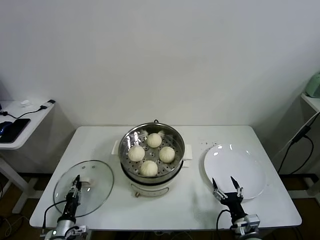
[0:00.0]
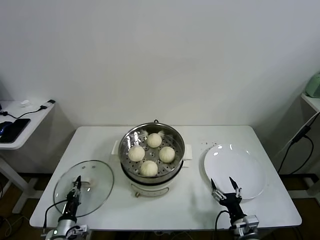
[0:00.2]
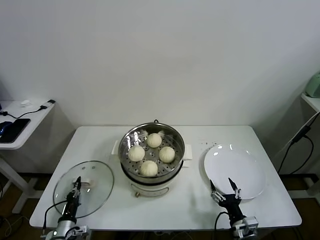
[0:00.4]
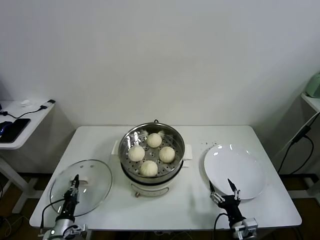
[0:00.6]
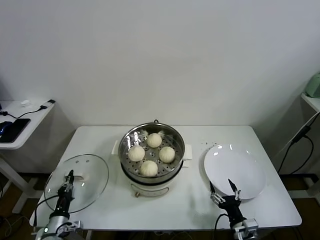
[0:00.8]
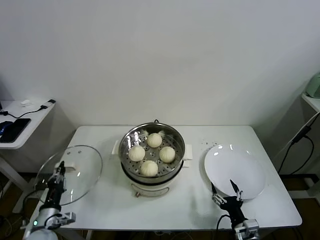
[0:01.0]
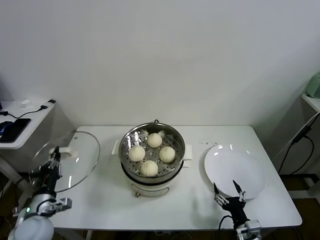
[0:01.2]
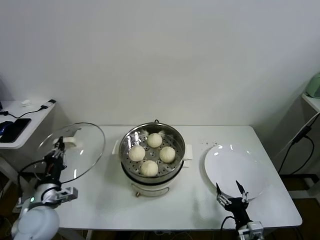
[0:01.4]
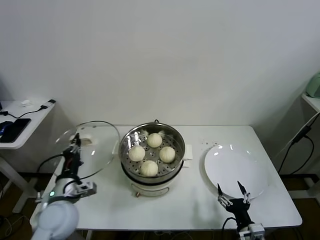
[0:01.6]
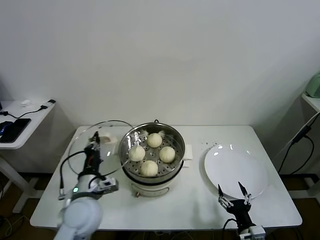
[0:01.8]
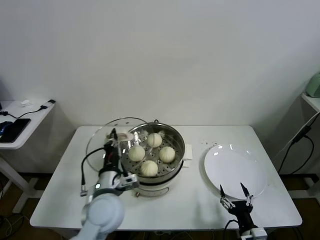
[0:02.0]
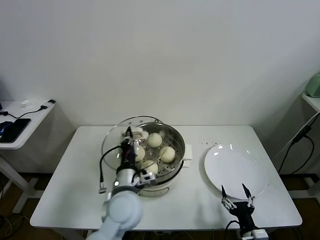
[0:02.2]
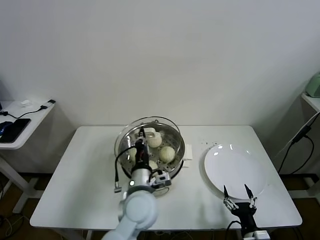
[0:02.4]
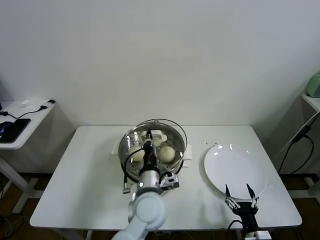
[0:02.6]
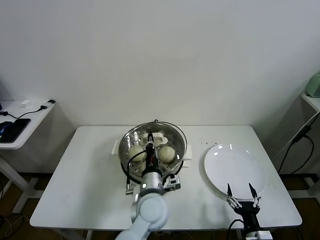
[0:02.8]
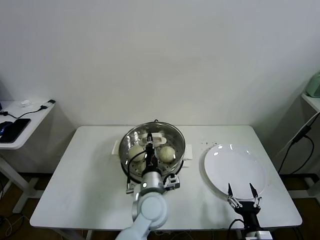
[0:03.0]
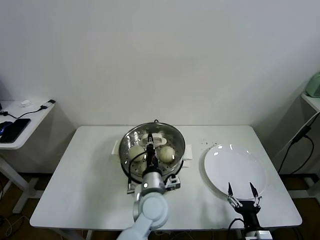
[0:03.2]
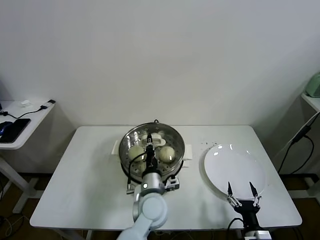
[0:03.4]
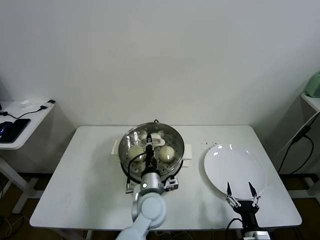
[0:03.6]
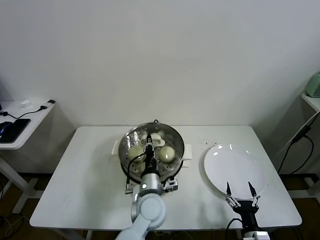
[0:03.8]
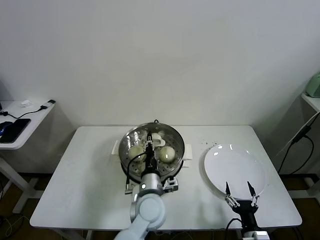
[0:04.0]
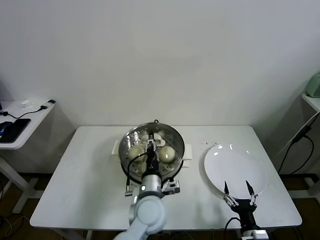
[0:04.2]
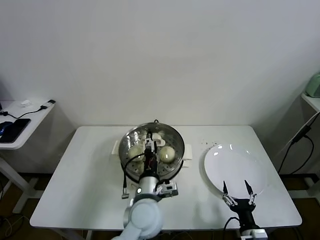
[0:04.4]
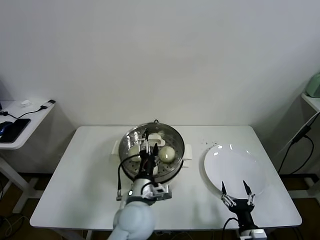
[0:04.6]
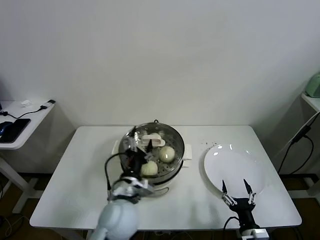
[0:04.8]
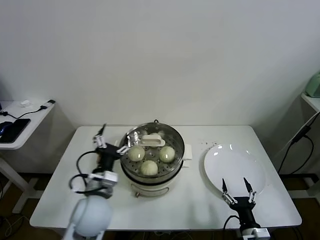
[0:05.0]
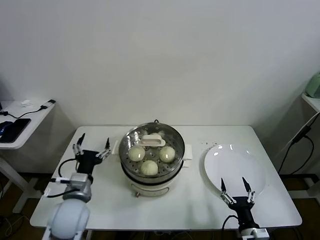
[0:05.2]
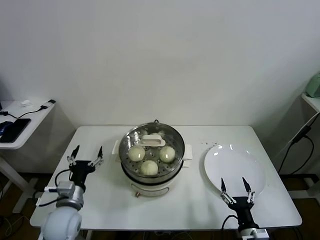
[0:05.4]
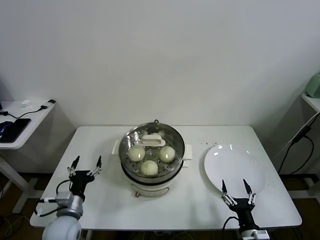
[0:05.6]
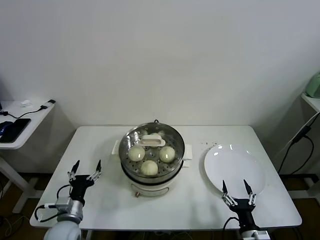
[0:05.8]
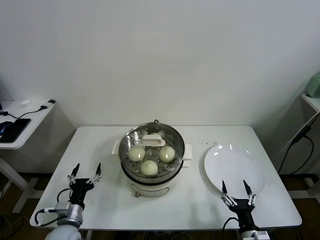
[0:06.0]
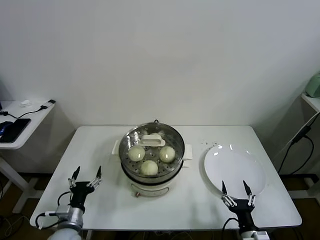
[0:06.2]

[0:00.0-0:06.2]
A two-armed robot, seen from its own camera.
Task of the whole recording: take steamed baozi put them in steamer.
Step, 0:00.4 to 0:04.4: Place the pot lid on the steamer with left gripper.
0:00.0 to 0:01.6: The left gripper is displaced upward by some 25 cm, and closes up.
0:01.6 to 0:03.2: The left gripper goes about 30 cm to the right.
0:03.2 to 0:04.6: The left gripper shifts by about 5 cm, and opens up.
0:04.6 to 0:06.2: The left gripper heads to the left and downward, covering about 30 cm.

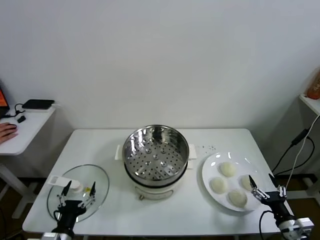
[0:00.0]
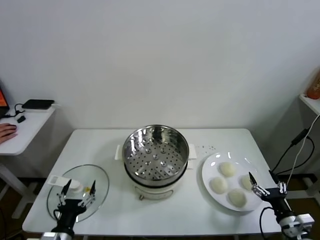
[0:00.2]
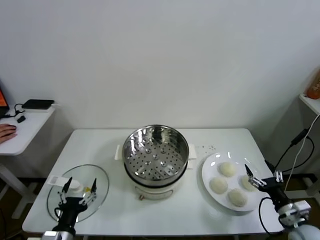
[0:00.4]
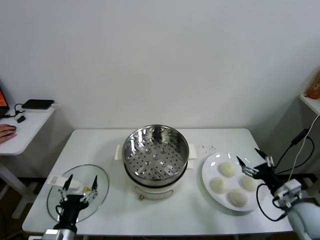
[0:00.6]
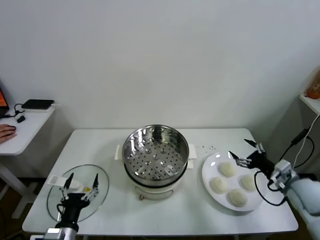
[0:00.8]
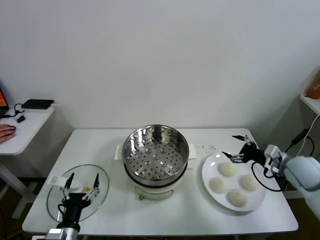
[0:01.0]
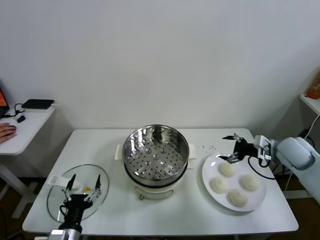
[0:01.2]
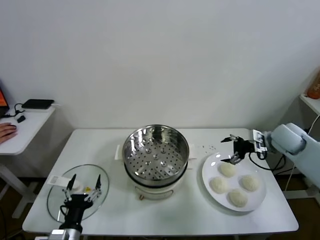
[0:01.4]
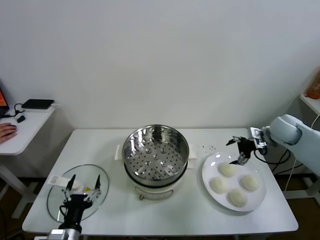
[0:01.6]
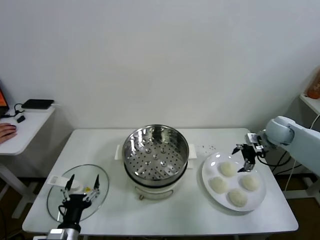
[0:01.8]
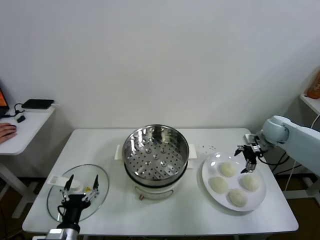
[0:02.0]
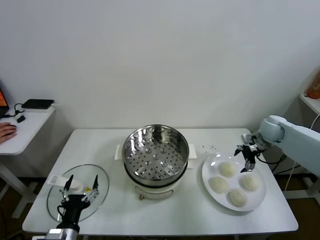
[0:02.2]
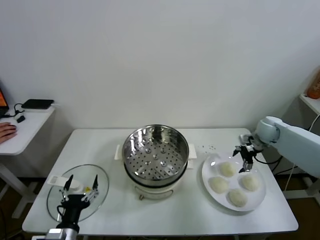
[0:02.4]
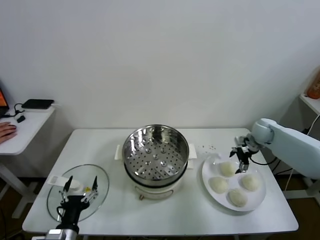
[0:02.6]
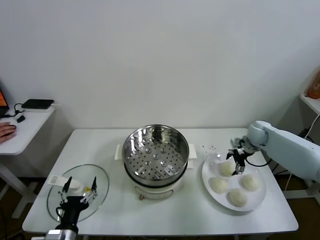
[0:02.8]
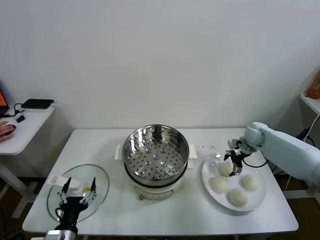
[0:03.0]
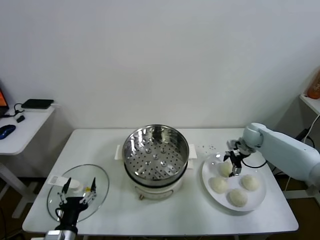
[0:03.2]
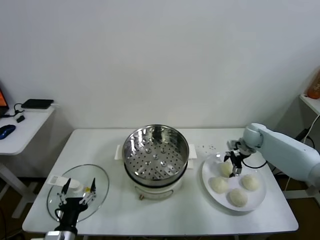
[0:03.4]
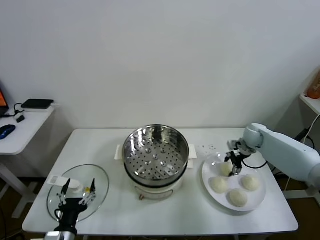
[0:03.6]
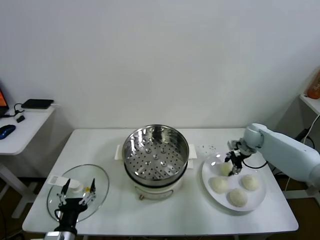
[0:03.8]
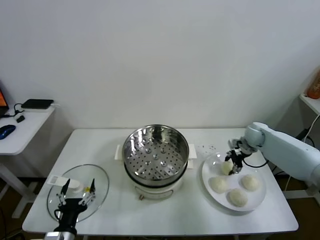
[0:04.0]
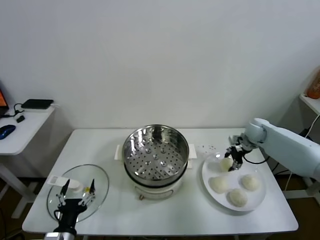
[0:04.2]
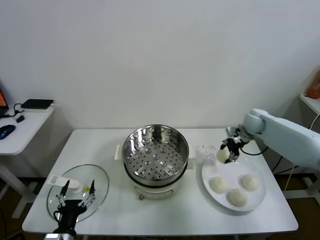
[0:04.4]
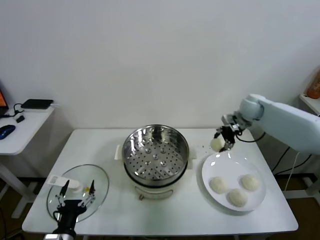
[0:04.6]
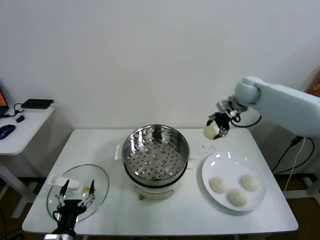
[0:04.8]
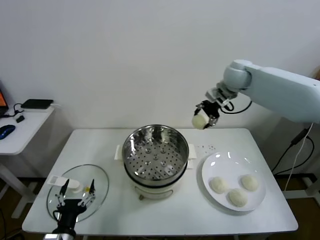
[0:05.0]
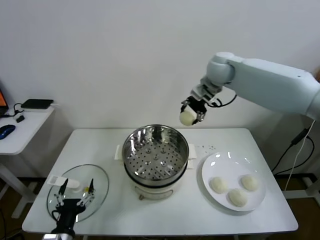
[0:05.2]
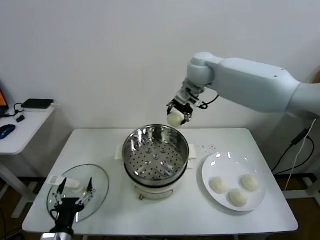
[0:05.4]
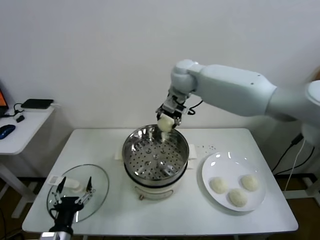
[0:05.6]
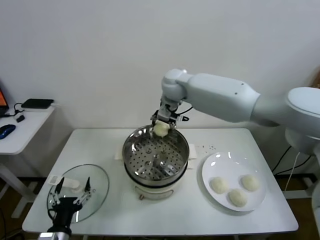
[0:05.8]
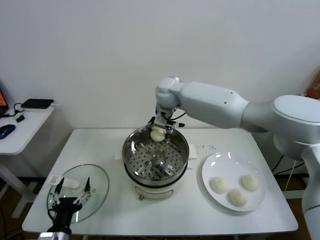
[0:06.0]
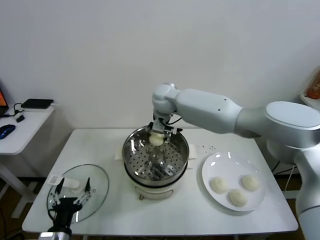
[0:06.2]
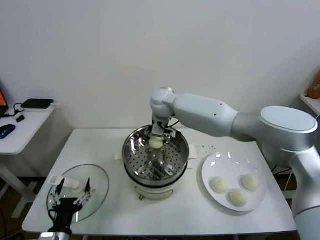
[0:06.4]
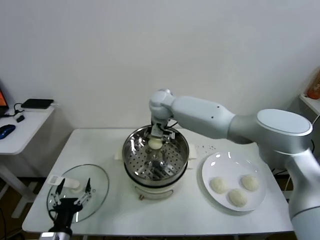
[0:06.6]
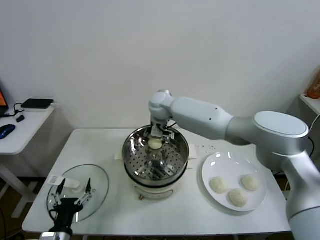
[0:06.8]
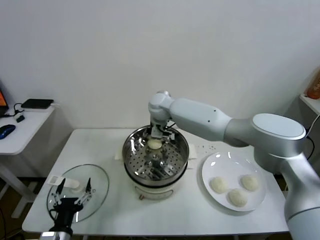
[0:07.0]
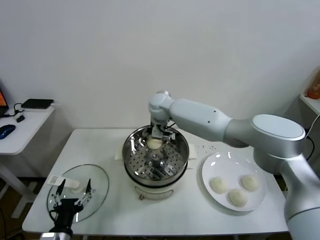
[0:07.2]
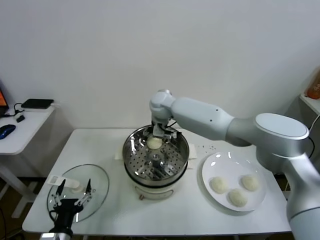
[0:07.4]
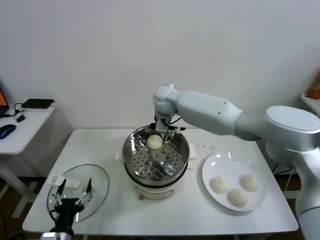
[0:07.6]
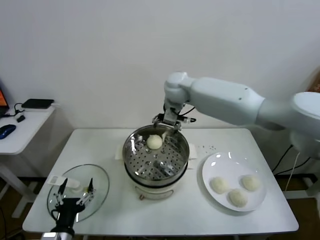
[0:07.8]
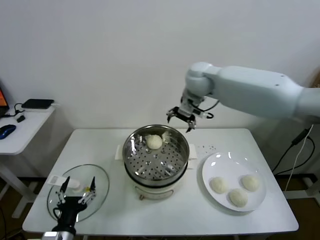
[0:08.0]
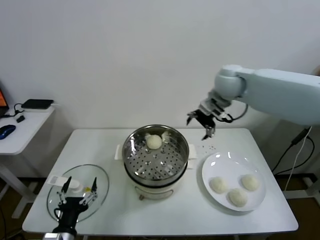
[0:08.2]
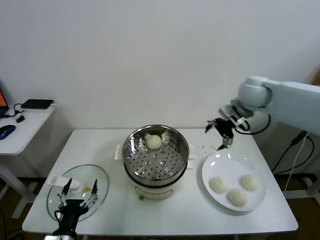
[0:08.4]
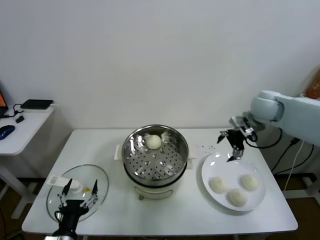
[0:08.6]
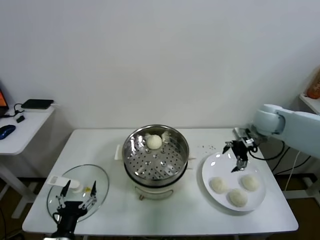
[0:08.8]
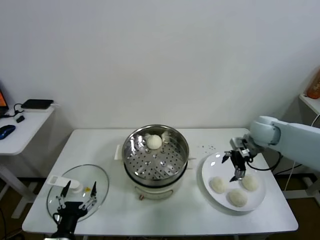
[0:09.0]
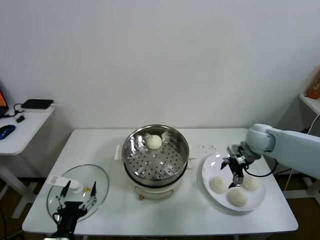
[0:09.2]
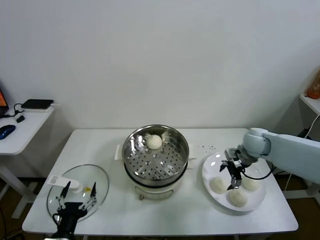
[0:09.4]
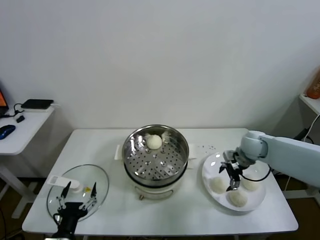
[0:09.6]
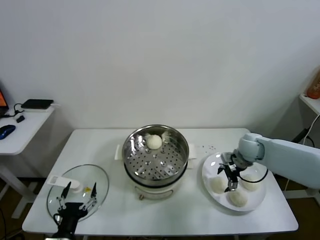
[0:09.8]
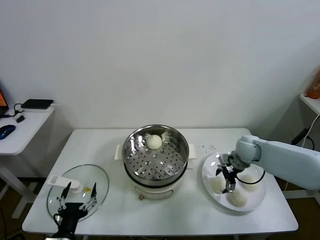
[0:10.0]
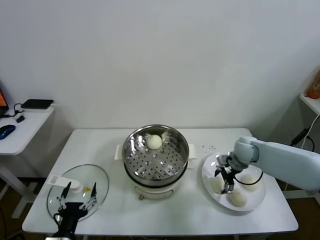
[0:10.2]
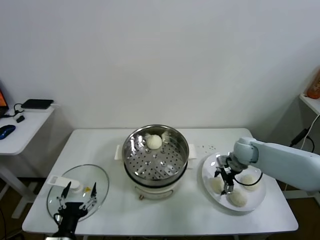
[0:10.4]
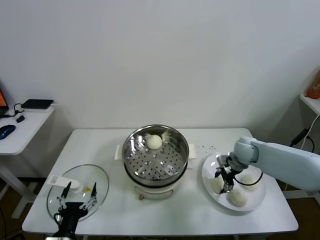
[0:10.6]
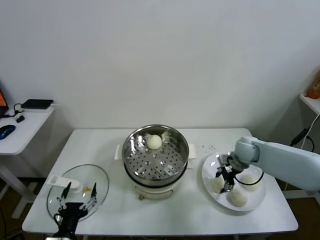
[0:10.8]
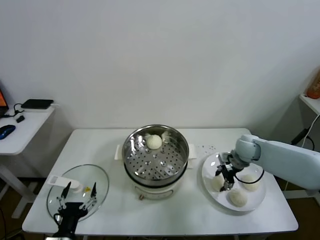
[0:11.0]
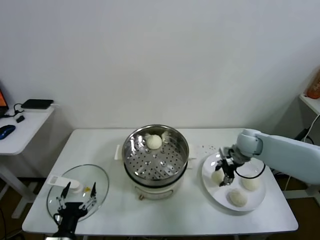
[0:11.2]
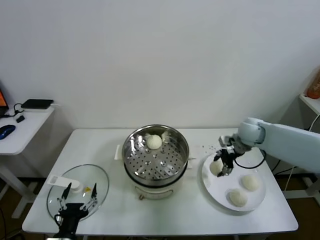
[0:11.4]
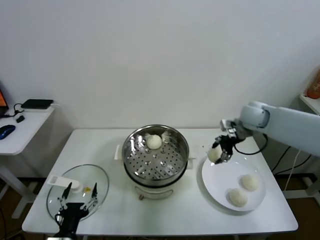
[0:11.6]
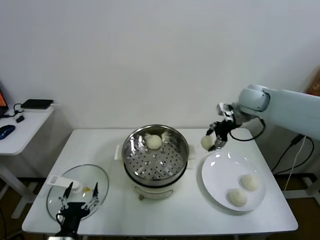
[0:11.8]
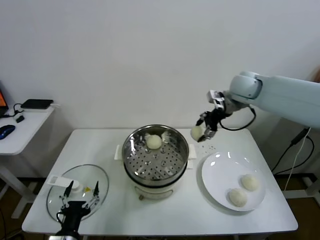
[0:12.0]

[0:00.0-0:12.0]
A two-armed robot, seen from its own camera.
Task of the whole recording: take steamed baozi put them in steamer.
Step, 0:00.0 to 0:03.8: Grasp the baozi in the plate with right gripper.
Step, 0:04.0 to 0:07.2: Place the baozi on the steamer with right gripper.
Step, 0:07.6 to 0:10.8: Grasp the baozi in the plate with right gripper.
0:01.6 to 0:03.0: The right gripper shifts roughly 10 cm downward and forward.
0:03.0 to 0:04.4: The right gripper travels upward by some 10 cm, and closes.
0:04.4 to 0:06.0: The right gripper heads to the left, covering roughly 35 cm.
0:06.0 to 0:07.6: The right gripper opens its fingers.
0:07.6 to 0:09.0: The right gripper is displaced to the right by some 30 cm.
0:09.0 to 0:10.4: The right gripper travels downward by about 10 cm.
0:10.4 to 0:12.0: The right gripper heads upward, covering approximately 25 cm, and closes its fingers.

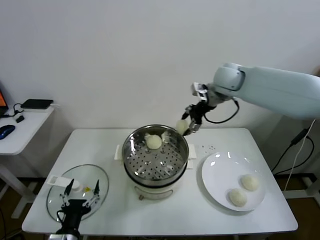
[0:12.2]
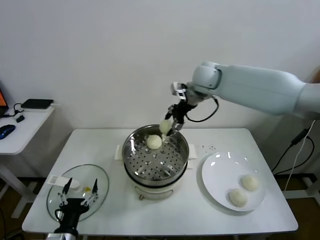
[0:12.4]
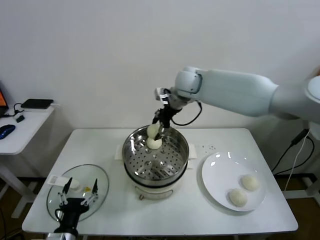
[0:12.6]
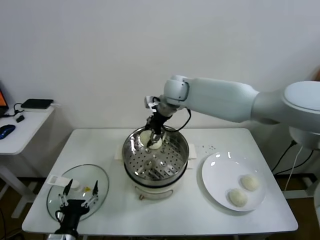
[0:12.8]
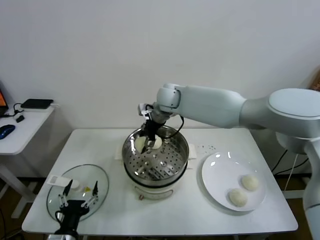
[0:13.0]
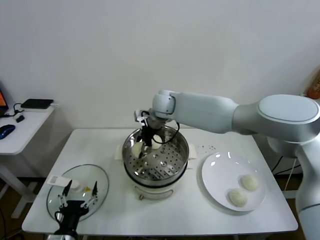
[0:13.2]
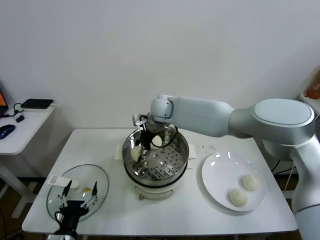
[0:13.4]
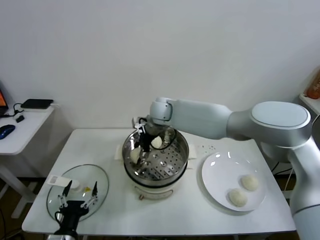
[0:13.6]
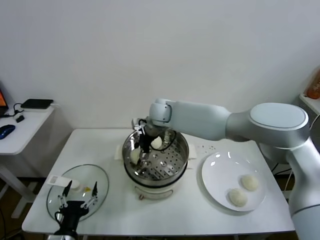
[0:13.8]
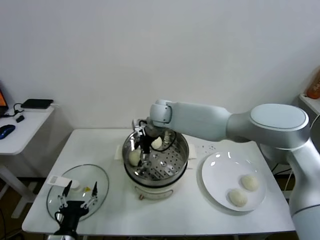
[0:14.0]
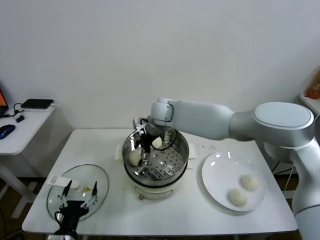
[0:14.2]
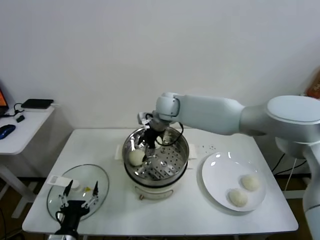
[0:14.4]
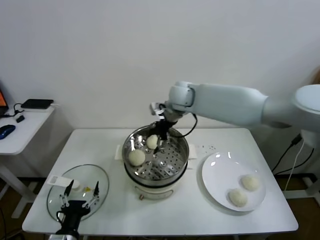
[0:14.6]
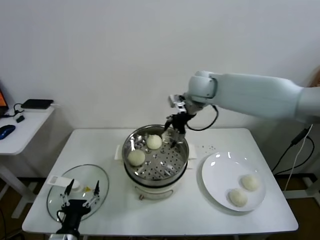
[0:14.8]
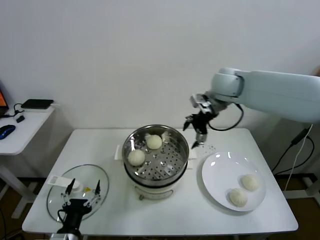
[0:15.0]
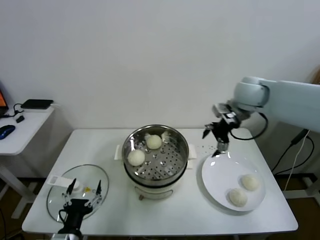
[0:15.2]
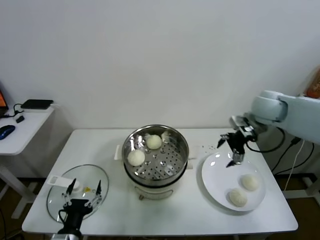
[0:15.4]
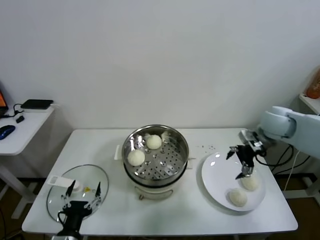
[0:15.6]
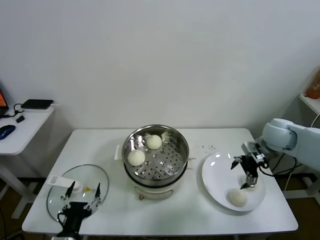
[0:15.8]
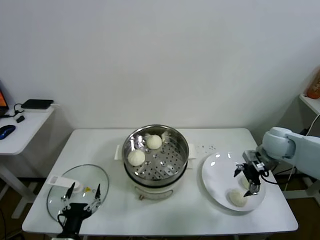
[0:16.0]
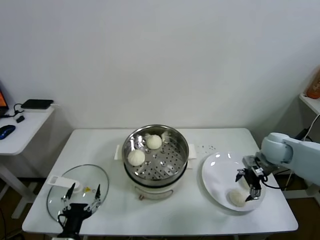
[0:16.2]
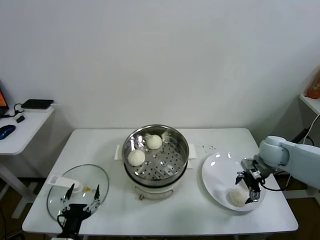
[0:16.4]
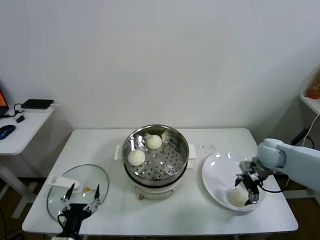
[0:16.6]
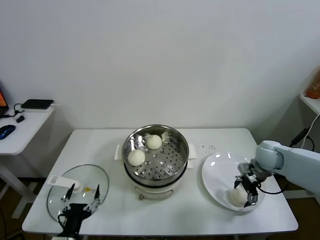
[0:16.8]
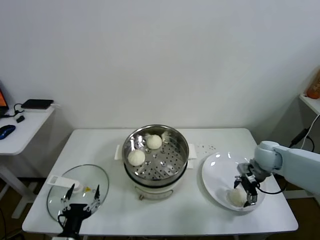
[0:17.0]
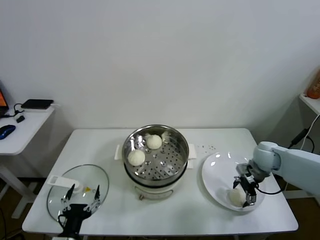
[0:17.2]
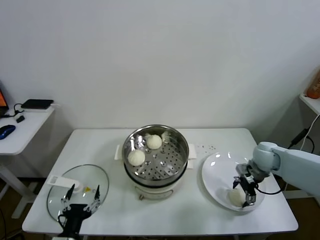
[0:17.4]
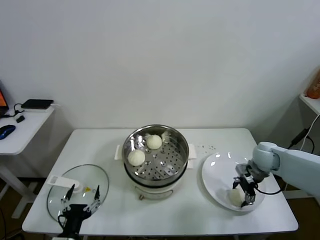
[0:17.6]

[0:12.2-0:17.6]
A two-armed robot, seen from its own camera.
Task of the whole recording: take steamed baozi put them in steamer.
Step, 0:12.2 to 0:14.0: Place the baozi on the steamer with right gripper.
0:12.2 to 0:13.6: The right gripper goes approximately 25 cm to the left and downward.
0:13.6 to 0:15.0: The right gripper shifts some 25 cm to the right and upward, and opens.
0:15.0 to 0:16.2: The right gripper goes some 25 cm downward, to the right and backward.
0:16.2 to 0:17.6: The right gripper heads downward, covering roughly 5 cm.
